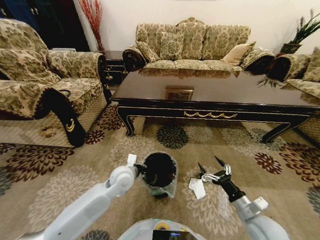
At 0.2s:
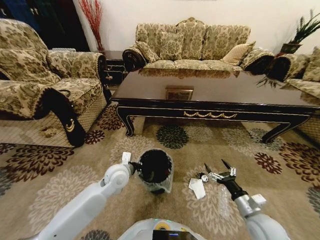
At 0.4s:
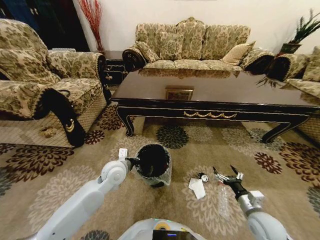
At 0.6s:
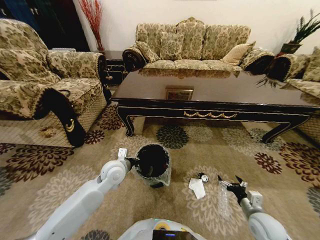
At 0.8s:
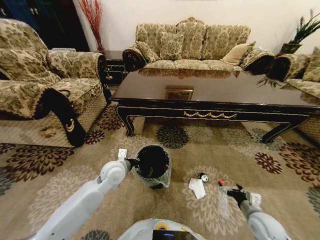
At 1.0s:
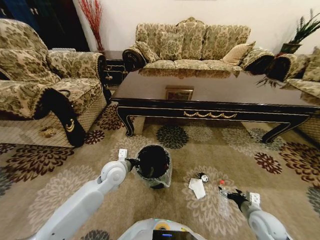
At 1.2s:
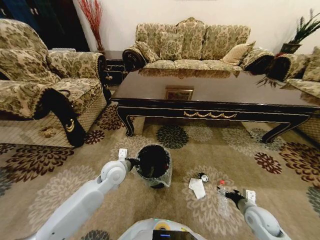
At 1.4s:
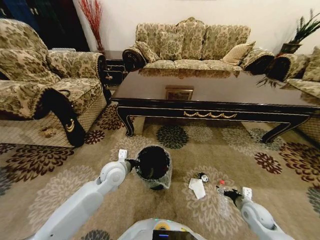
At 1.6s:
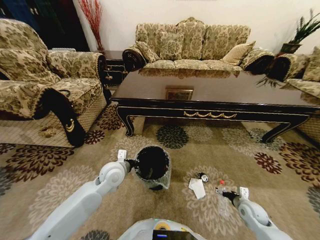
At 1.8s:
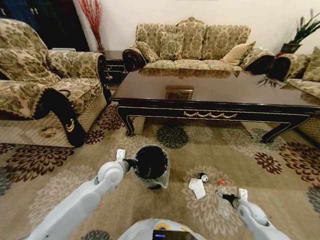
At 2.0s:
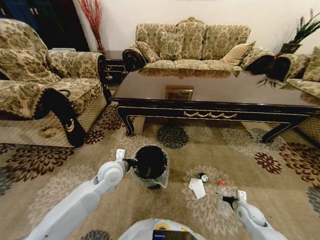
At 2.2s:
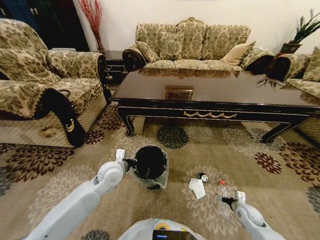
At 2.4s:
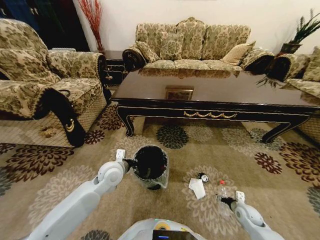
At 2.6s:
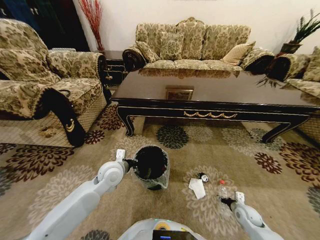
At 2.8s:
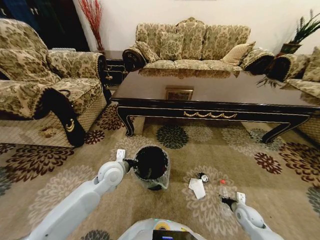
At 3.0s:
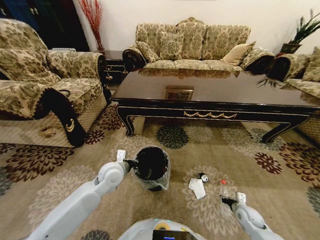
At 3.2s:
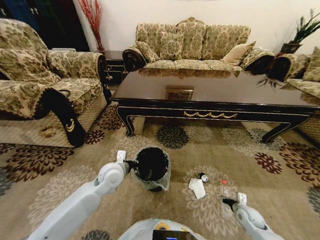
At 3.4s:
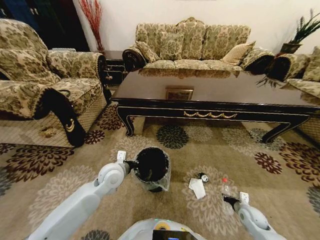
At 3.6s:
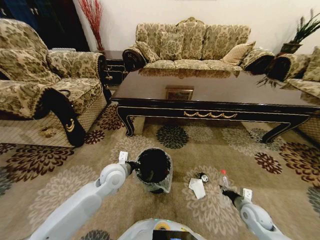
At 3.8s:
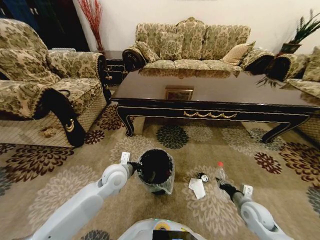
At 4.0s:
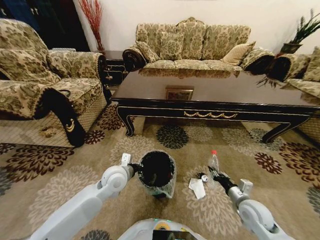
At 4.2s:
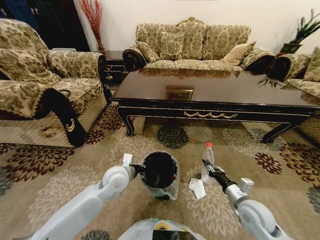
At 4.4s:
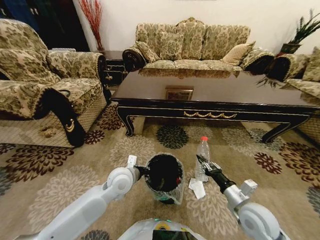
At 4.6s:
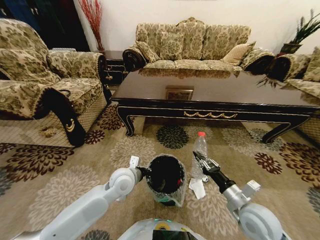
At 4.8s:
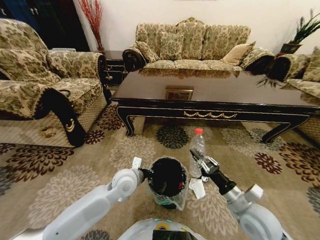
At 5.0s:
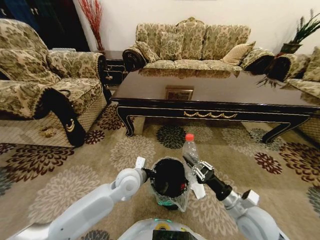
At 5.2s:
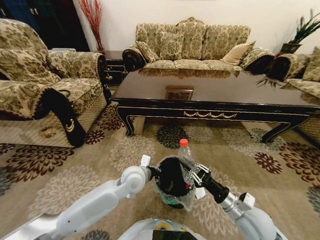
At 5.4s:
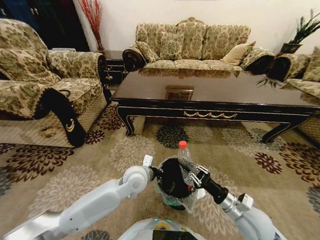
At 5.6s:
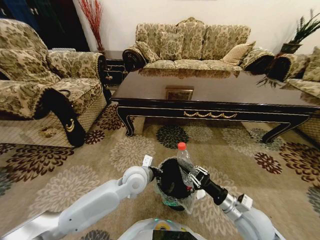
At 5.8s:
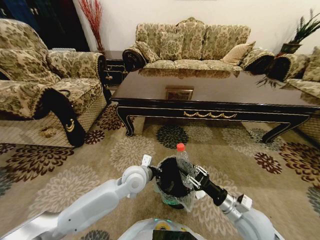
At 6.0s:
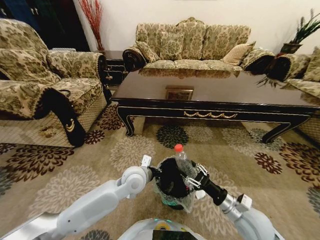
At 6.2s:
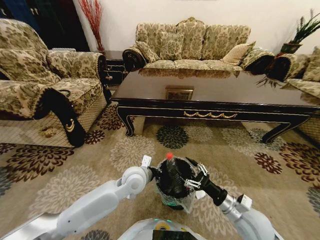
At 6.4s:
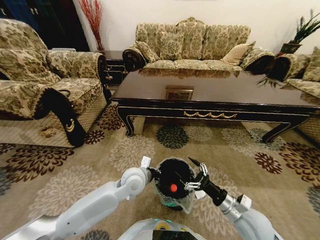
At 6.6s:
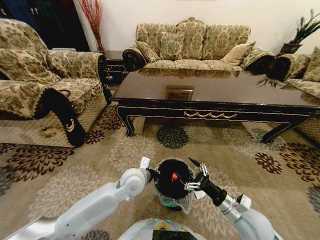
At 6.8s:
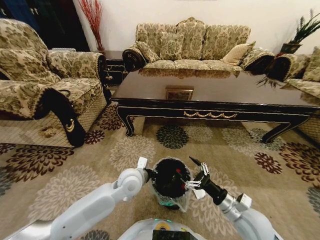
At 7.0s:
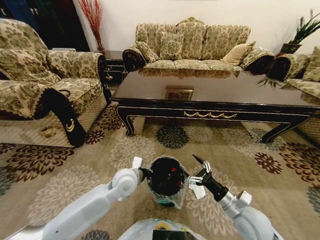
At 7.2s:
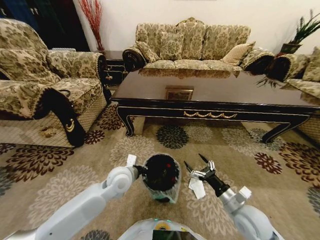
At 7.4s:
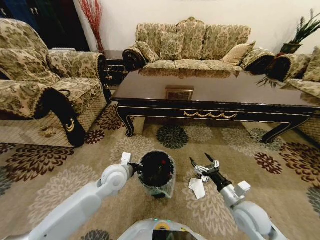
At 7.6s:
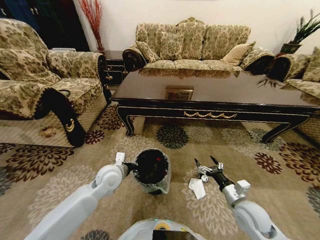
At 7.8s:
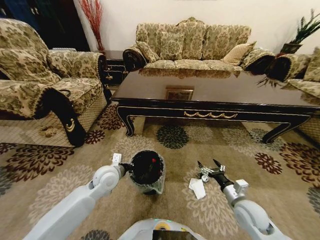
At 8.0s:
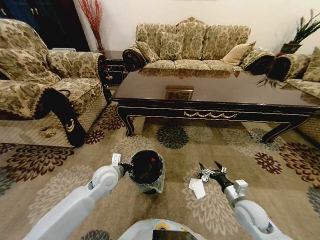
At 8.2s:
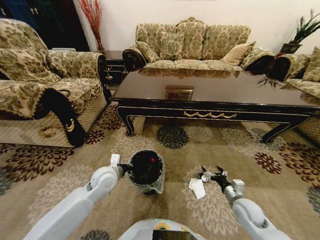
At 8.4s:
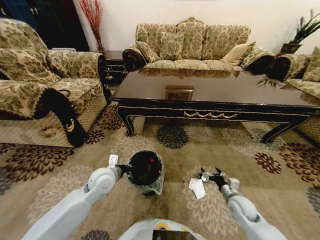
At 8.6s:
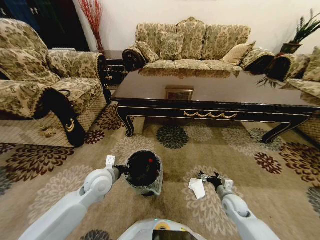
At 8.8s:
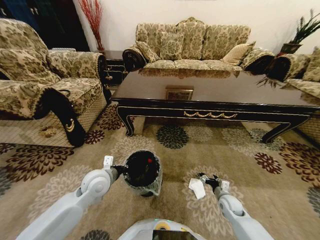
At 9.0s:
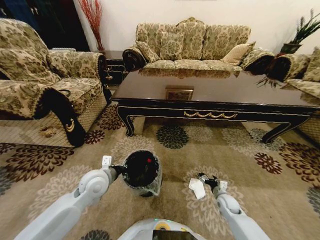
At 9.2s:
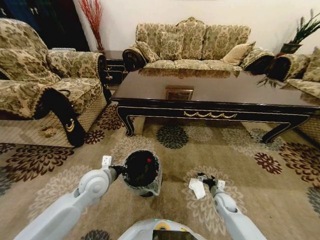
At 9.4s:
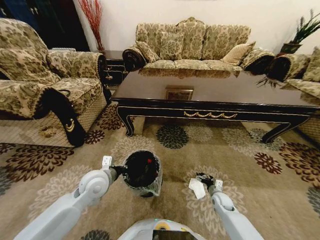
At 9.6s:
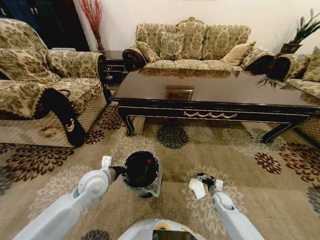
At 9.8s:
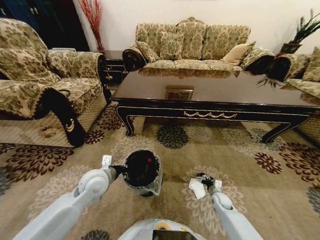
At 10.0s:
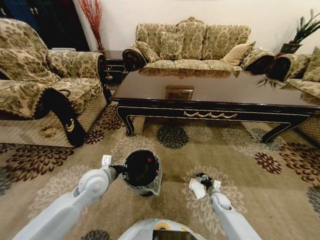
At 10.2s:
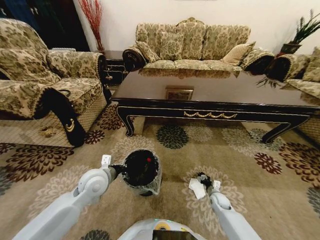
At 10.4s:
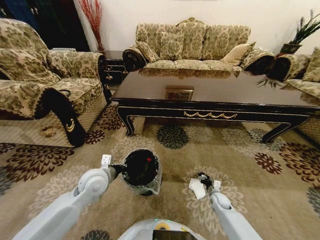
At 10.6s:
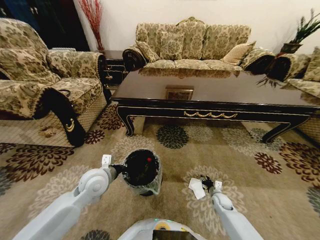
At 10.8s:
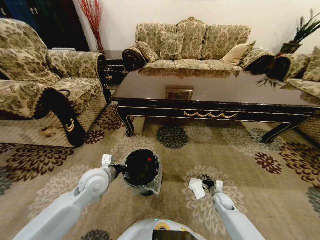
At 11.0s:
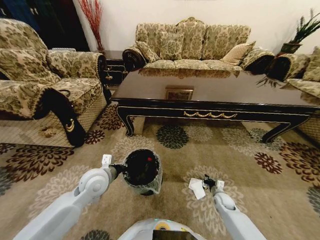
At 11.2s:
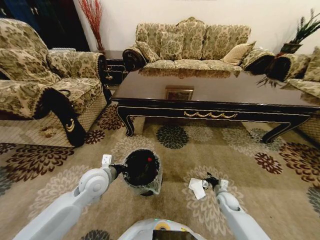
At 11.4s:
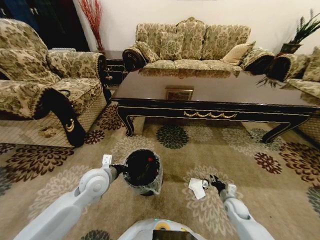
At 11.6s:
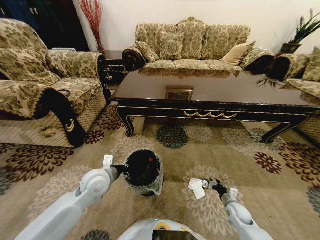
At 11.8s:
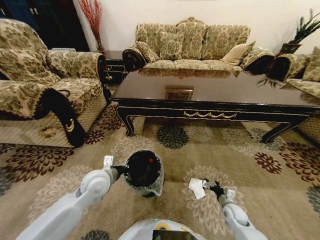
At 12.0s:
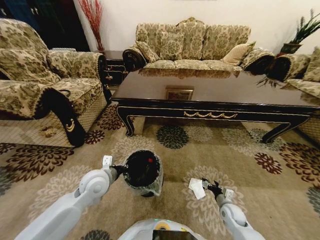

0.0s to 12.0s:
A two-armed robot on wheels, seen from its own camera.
Task of the whole recording: Move to the front of the table and pick up the trash from the floor, then place it into the trash bin.
0.0s to 1.6s: The right gripper heads downward, to the right and forward, covering approximately 15 cm.
1.6s to 3.0s: The right gripper ends up roughly 5 cm from where it was, and closes its fingers.
3.0s to 4.4s: The right gripper heads upward and to the left, covering approximately 25 cm.
4.4s to 6.0s: The left gripper shifts some 5 cm to the right. Meanwhile the right gripper opens its fingers.
6.0s to 7.6s: The right gripper opens up. The left gripper is displaced to the left by approximately 10 cm.
7.6s to 9.0s: The left gripper shifts by some 5 cm, while the right gripper goes approximately 20 cm downward and forward.
9.0s to 10.4s: The right gripper ends up roughly 5 cm from where it was, and closes its fingers.
10.4s to 12.0s: The right gripper moves backward, roughly 5 cm, and closes and opens again.

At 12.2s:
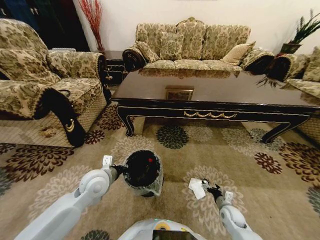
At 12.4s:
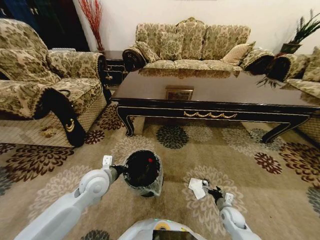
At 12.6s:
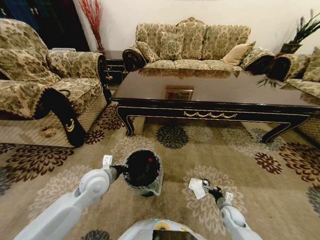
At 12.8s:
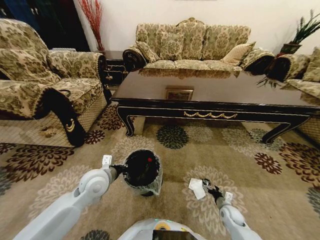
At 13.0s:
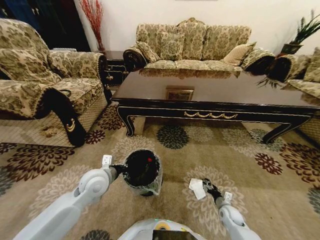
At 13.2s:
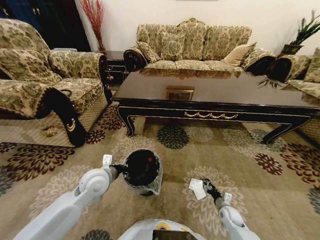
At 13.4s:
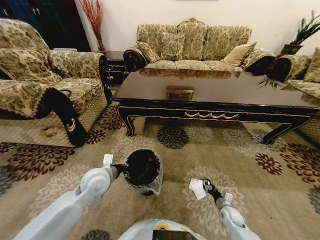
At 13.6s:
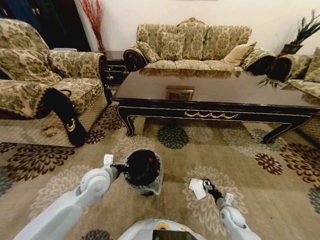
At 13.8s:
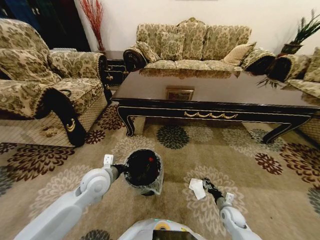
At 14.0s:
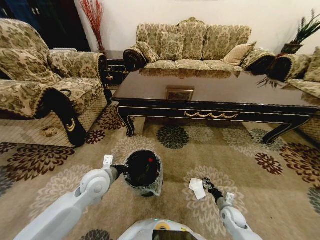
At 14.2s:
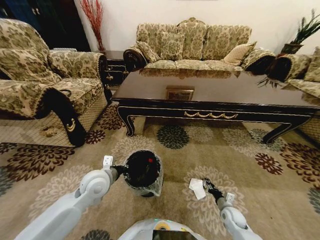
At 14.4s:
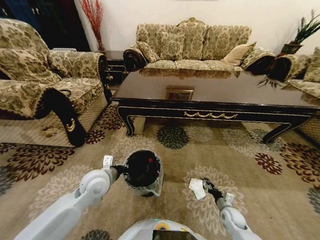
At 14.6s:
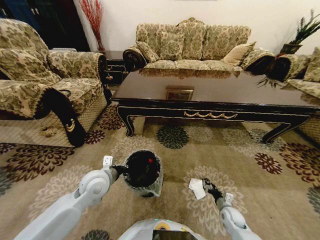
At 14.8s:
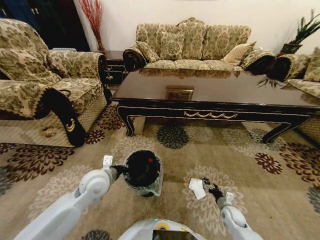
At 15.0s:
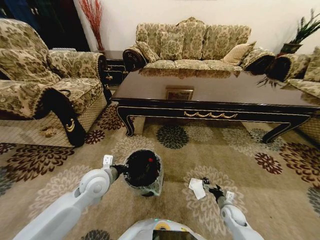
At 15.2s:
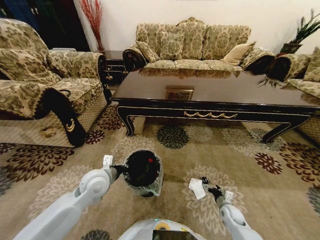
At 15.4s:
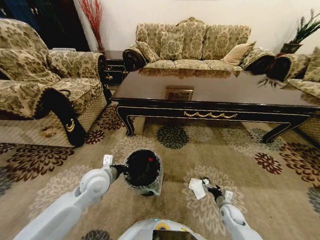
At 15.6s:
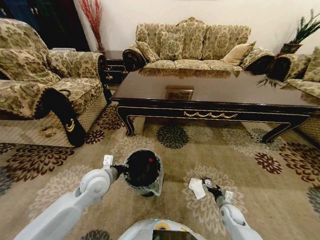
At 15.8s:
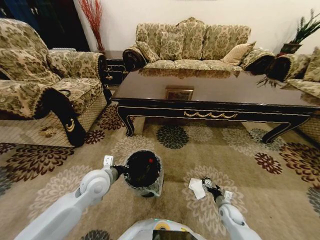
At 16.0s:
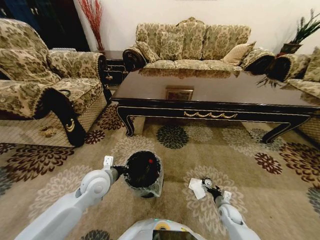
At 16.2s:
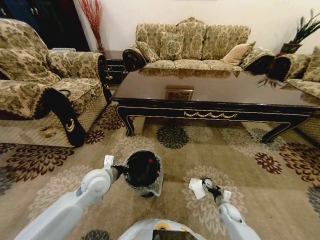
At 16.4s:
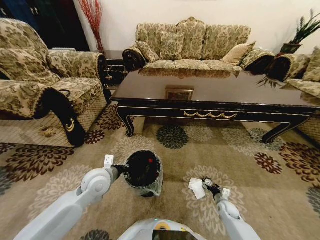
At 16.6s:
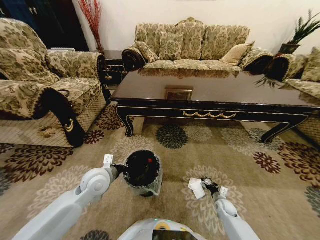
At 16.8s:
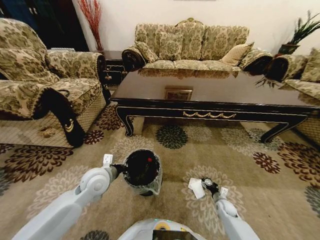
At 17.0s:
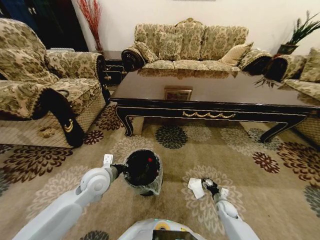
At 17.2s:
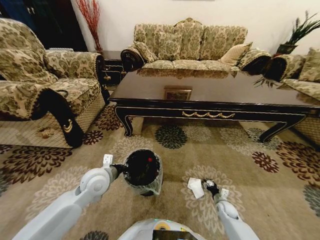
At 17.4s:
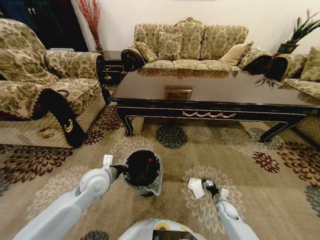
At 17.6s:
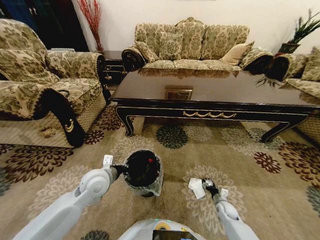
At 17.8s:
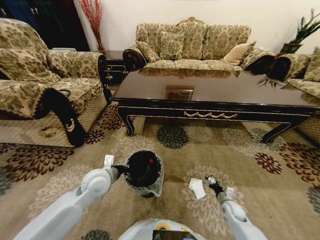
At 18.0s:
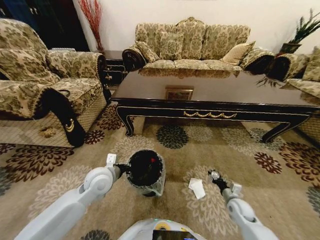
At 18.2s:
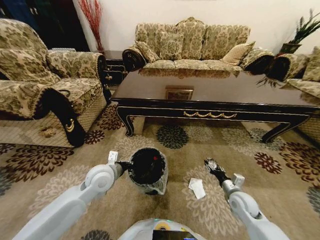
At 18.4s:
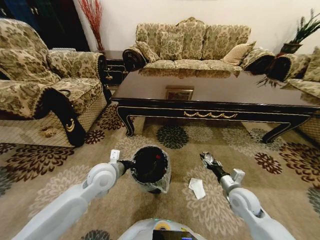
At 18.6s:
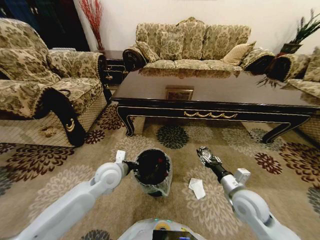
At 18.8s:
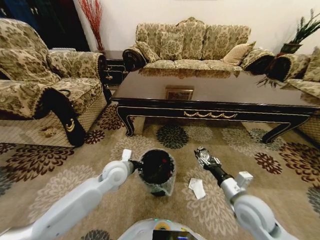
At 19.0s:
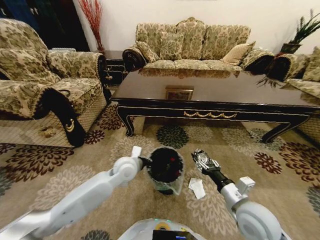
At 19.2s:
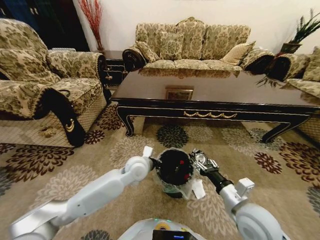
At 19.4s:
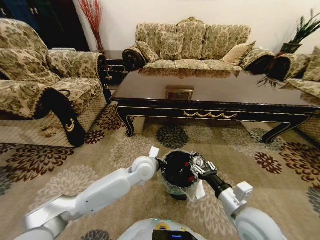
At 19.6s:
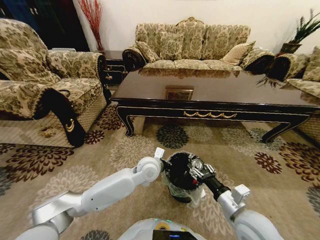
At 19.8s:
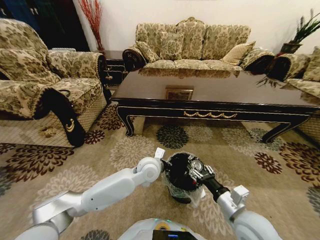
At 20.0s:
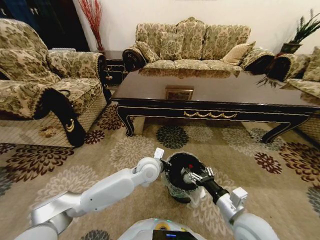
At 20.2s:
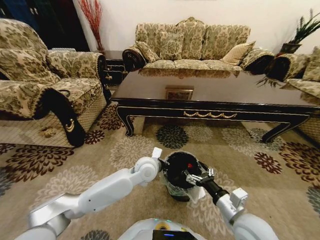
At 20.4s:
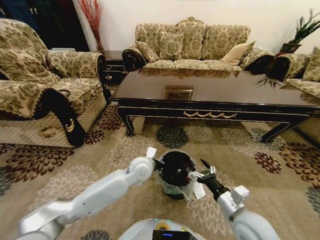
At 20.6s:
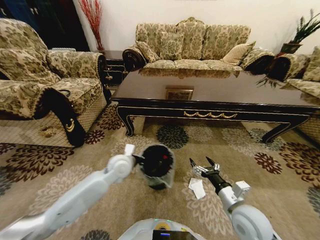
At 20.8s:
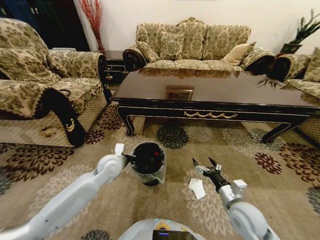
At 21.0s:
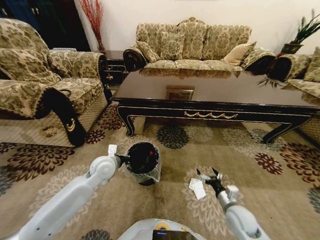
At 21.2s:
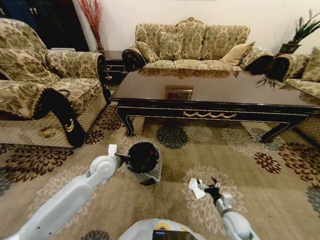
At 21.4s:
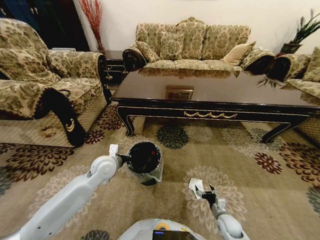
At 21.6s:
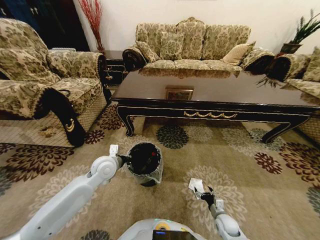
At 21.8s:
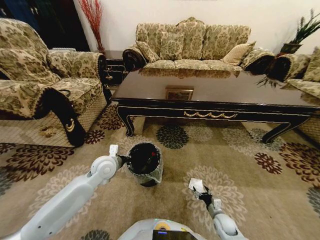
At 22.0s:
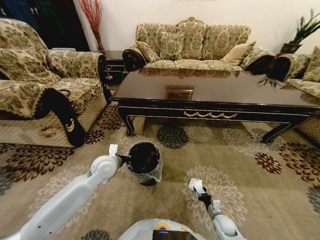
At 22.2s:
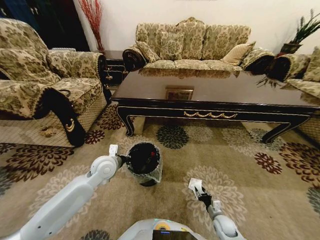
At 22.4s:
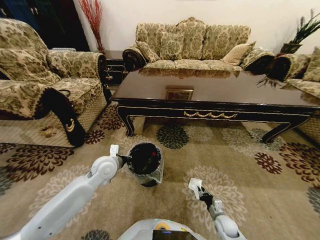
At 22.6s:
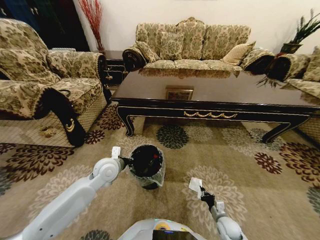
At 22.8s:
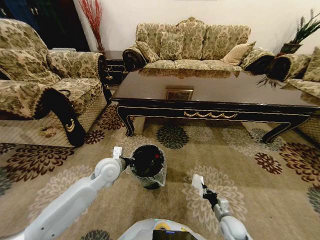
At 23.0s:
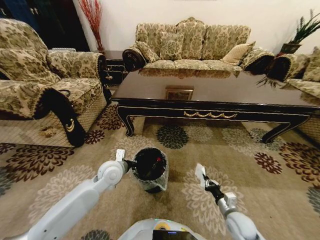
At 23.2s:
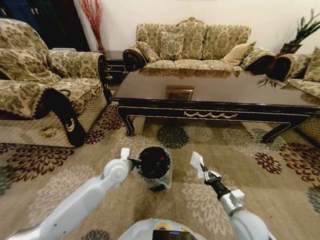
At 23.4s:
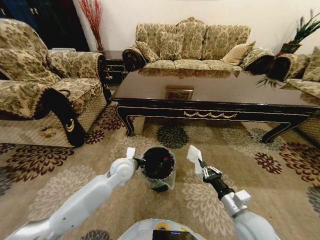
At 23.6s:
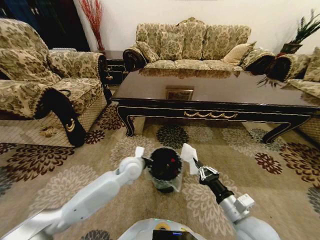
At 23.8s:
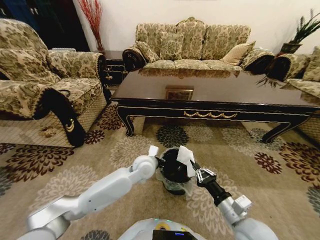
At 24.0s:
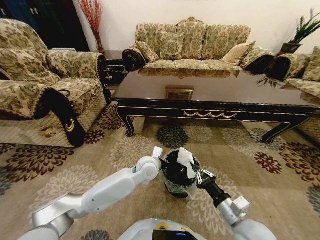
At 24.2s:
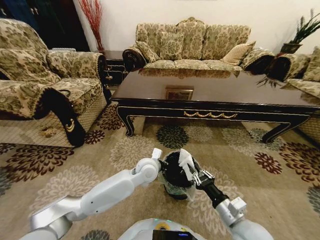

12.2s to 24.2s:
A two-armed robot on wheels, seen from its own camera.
Task of the whole recording: Move to the front of the table and pick up the trash from the floor, then place it into the trash bin.
12.2s to 13.8s: The right gripper closes its fingers.
13.8s to 15.2s: The right gripper opens up.
15.2s to 16.6s: The grippers stay close to where they were, moving slightly.
16.6s to 18.2s: The right gripper heads upward, covering roughly 20 cm, and closes up.
18.2s to 19.8s: The left gripper travels to the right by approximately 15 cm, while the right gripper travels upward, backward and to the left by roughly 20 cm.
19.8s to 21.2s: The left gripper moves to the left, some 20 cm. Meanwhile the right gripper goes approximately 20 cm downward, and opens its fingers.
21.2s to 22.6s: The right gripper shifts approximately 5 cm downward, and closes.
22.6s to 24.2s: The right gripper goes about 25 cm upward, while the left gripper is displaced to the right by some 15 cm.
